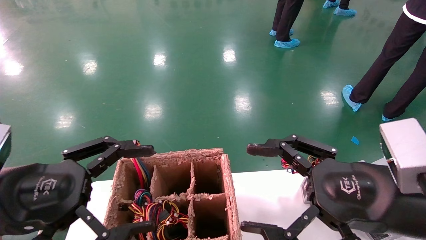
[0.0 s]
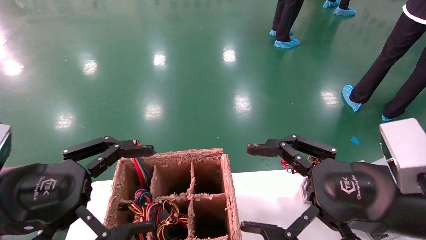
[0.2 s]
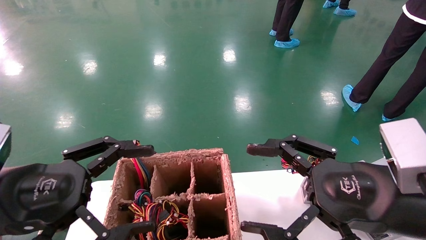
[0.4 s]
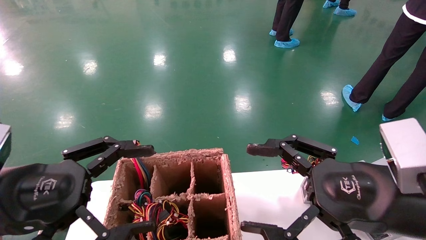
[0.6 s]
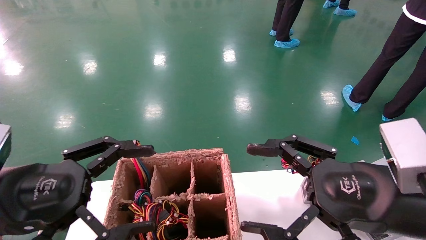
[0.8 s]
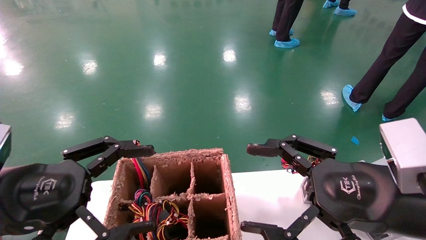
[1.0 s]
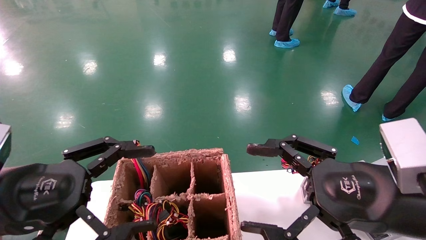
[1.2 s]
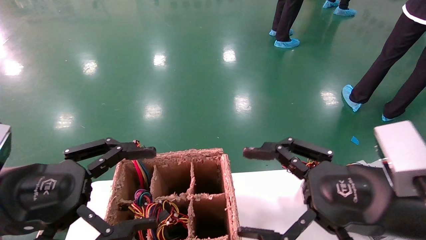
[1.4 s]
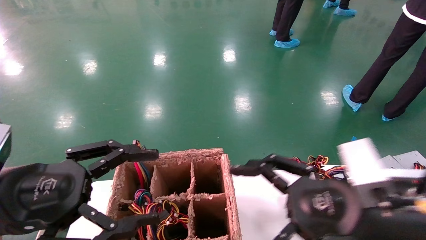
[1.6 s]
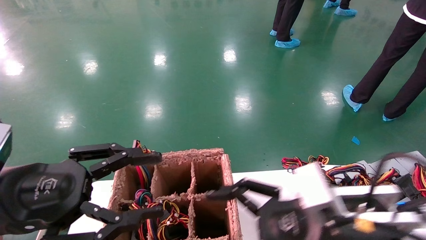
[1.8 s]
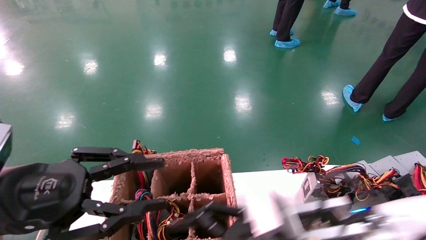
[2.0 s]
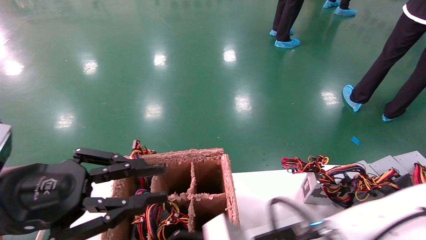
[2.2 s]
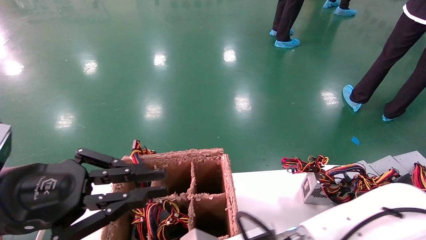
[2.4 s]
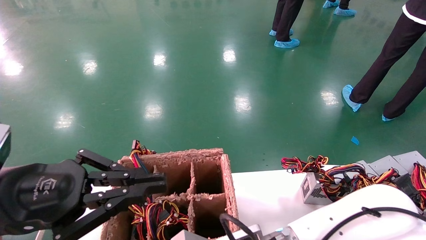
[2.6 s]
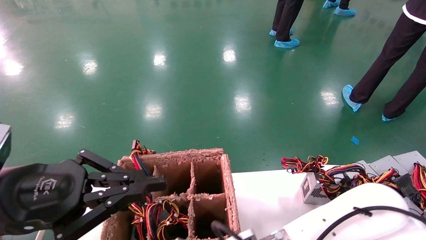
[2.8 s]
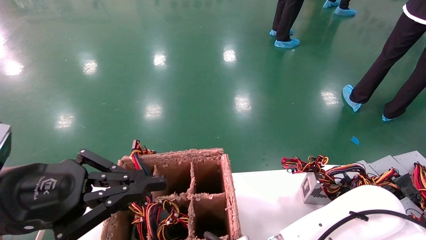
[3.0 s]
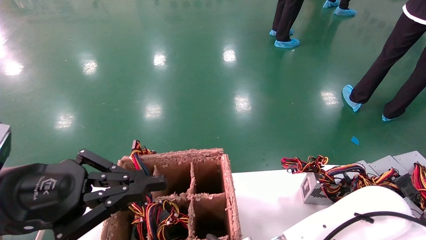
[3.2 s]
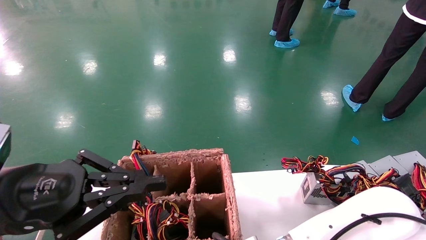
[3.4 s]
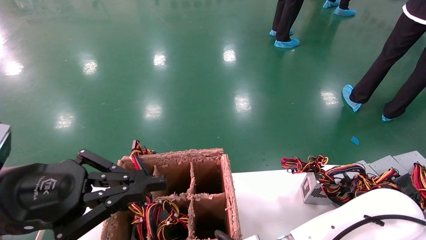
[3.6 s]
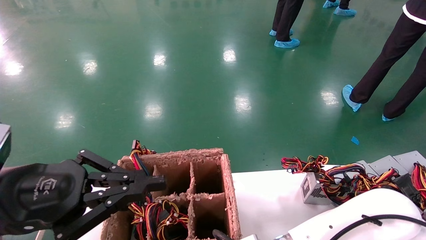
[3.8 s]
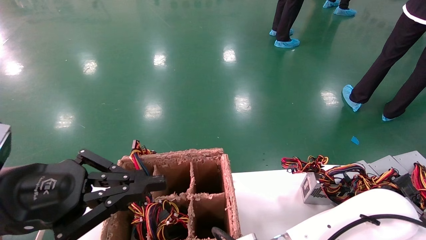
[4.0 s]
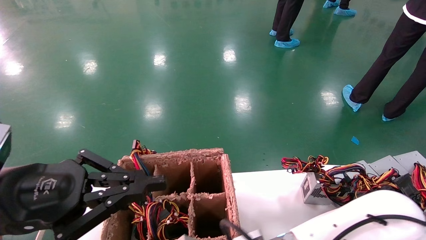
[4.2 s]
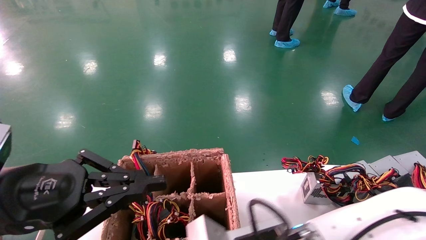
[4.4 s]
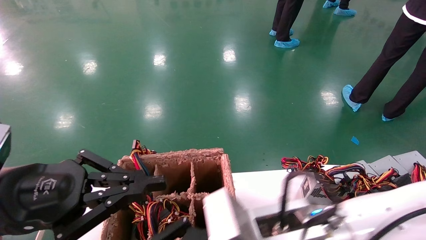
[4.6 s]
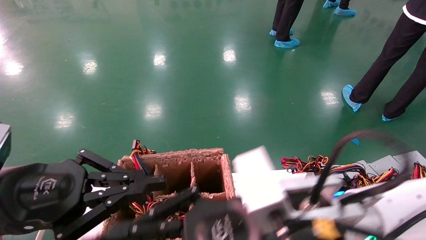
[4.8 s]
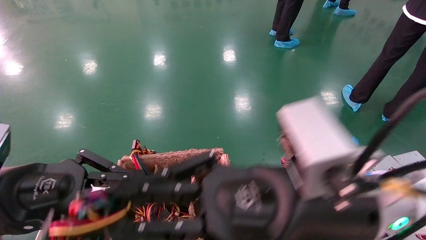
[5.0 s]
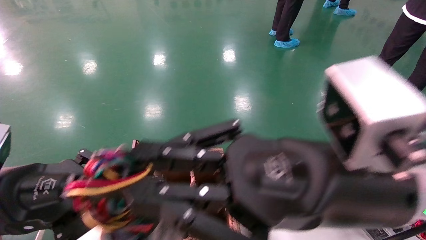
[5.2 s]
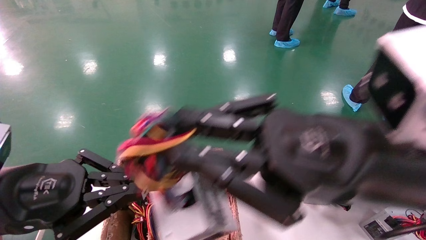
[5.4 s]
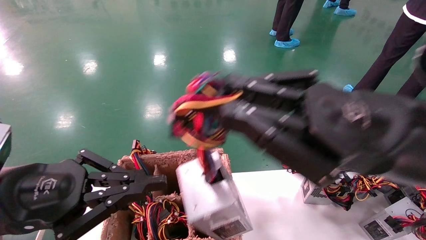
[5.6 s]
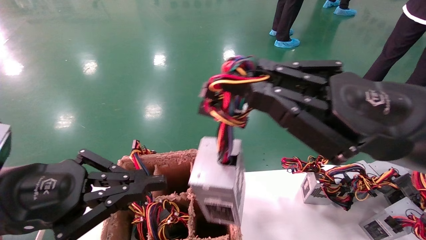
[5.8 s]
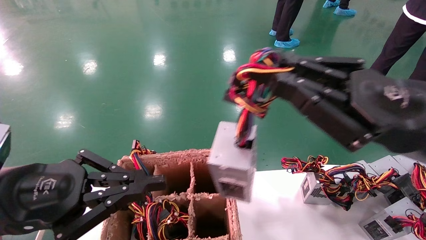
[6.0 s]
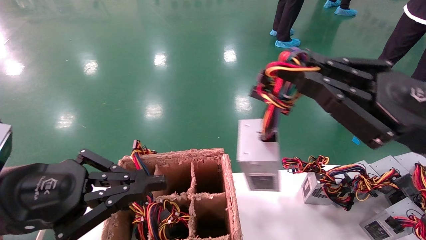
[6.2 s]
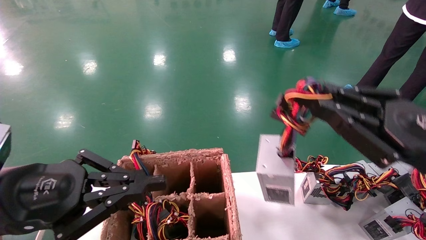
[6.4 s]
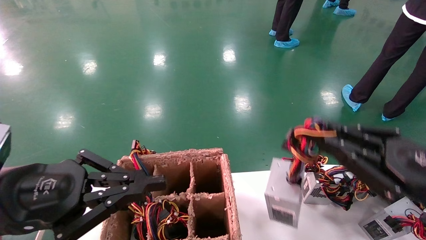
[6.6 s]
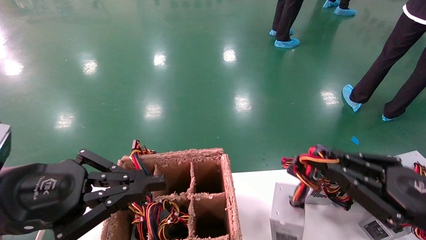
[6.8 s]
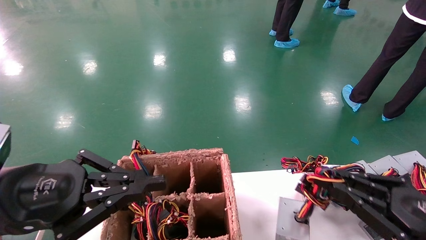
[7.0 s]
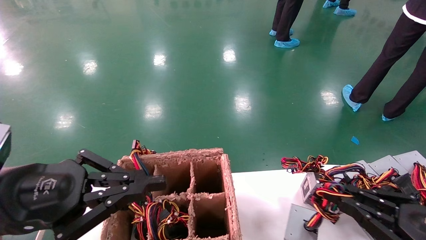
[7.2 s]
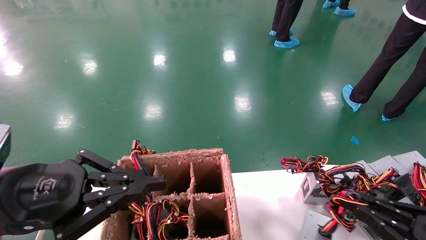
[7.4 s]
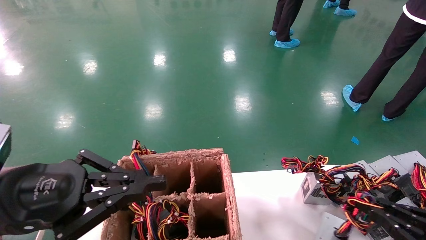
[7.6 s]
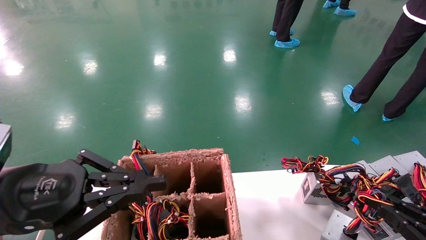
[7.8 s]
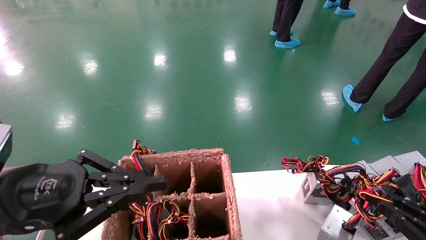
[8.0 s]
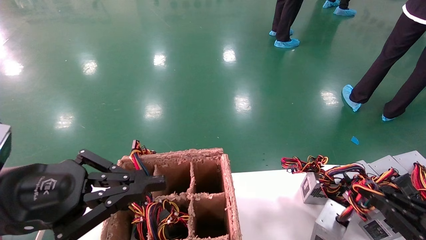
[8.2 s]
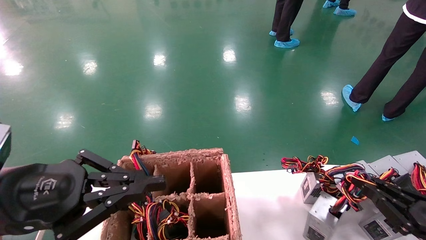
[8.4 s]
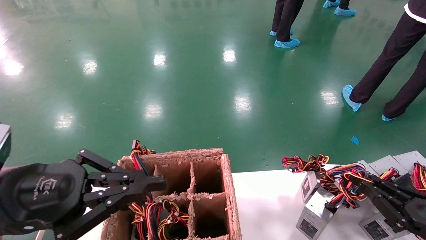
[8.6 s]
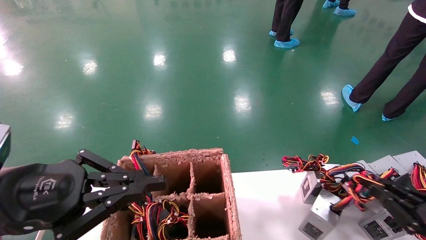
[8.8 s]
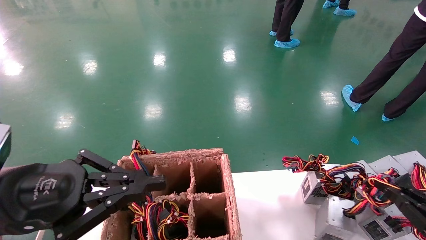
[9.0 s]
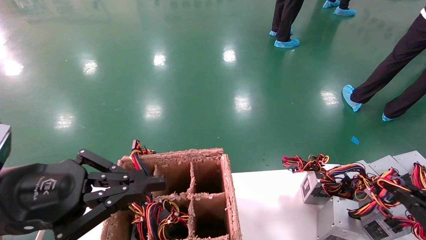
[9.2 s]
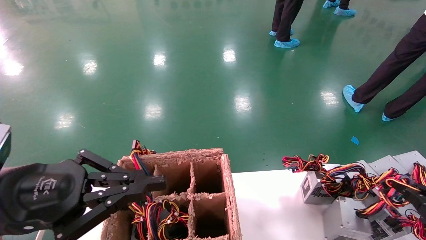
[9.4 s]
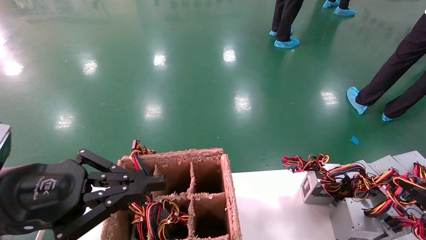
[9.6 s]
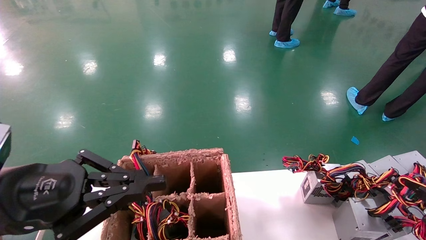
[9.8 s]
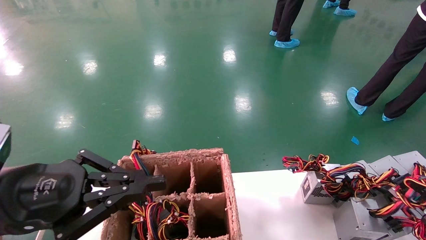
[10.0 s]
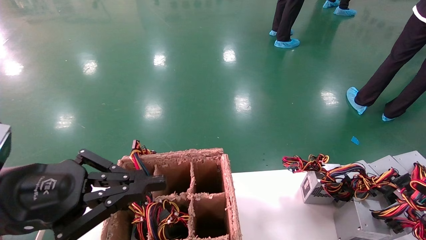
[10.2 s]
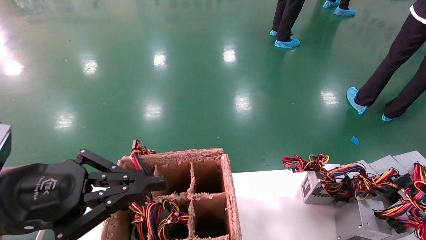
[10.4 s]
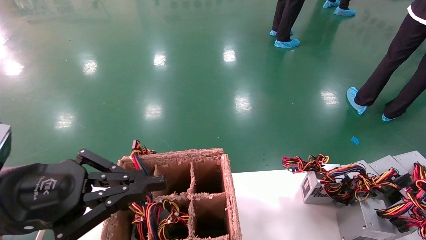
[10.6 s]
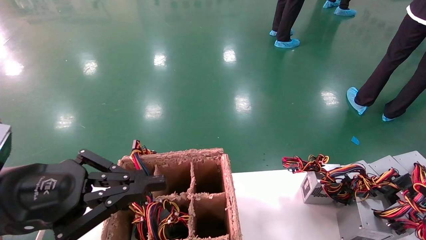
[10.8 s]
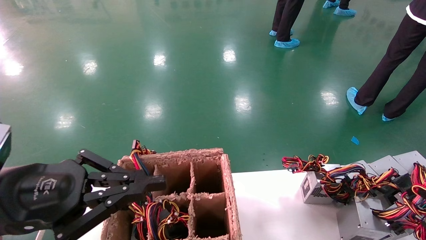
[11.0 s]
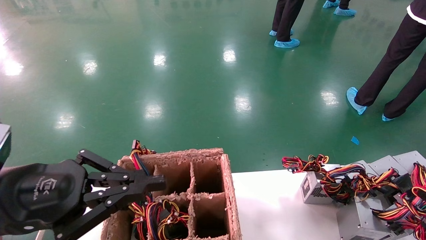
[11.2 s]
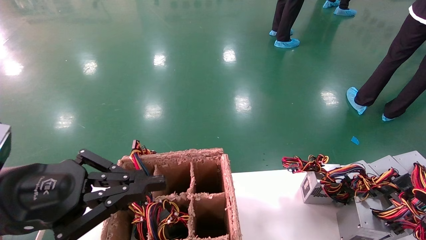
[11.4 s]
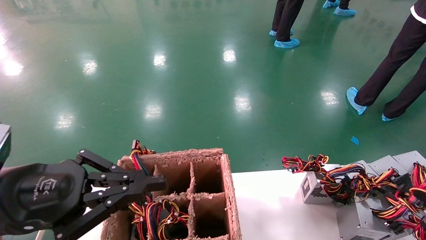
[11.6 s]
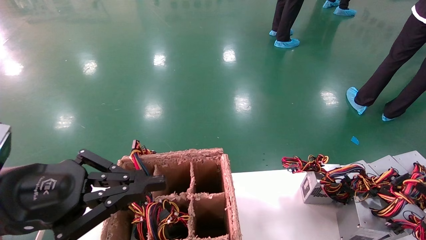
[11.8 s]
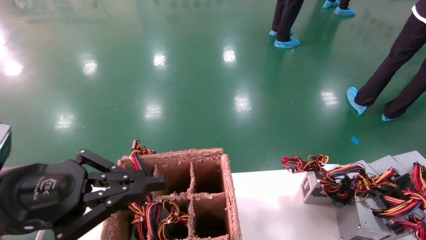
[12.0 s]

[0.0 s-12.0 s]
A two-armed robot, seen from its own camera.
Step, 1.6 to 4.0 s: Grab the main unit power supply from the containment box.
Step, 4.2 to 12.0 s: Place the main unit power supply in the designated area.
0.0 to 1.6 s: The grippers move only a little.
1.6 to 3.0 s: The right gripper shifts approximately 20 cm to the left and downward; the left gripper closes up.
3.0 to 4.4 s: The right gripper shifts about 5 cm upward, and closes up.
4.4 to 6.0 s: The right gripper goes approximately 25 cm to the right and upward.
6.0 to 7.6 s: The right gripper heads downward and to the right, covering some 25 cm.
7.6 to 9.0 s: The grippers stay close to where they were, moving slightly.
9.0 to 10.4 s: The right gripper shifts some 5 cm to the right.
10.4 to 12.0 s: The right gripper opens.

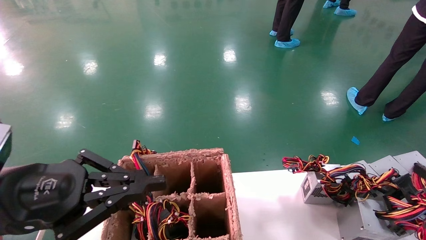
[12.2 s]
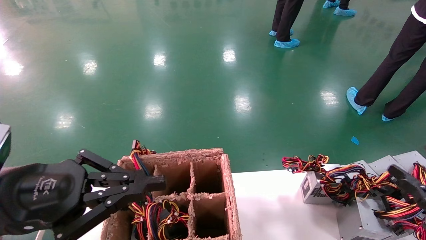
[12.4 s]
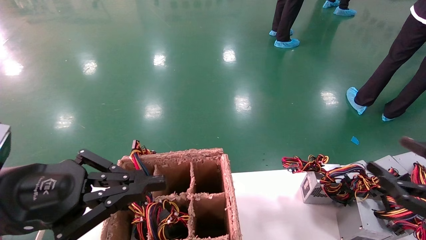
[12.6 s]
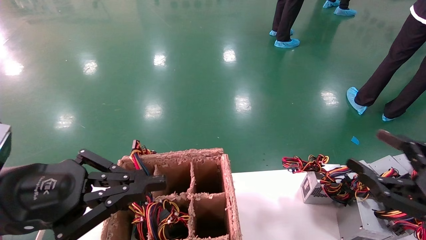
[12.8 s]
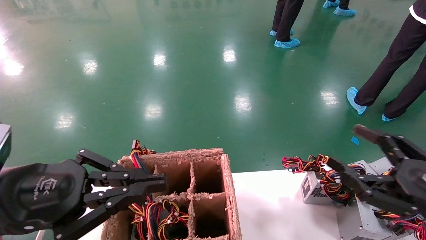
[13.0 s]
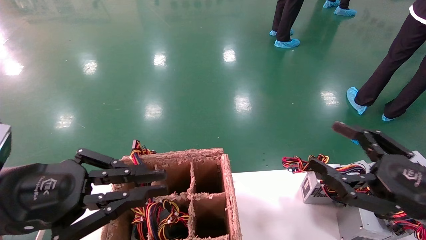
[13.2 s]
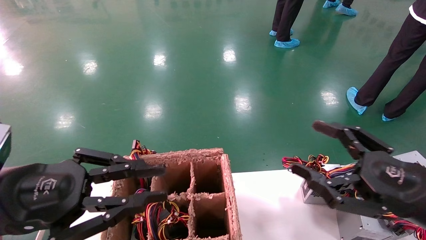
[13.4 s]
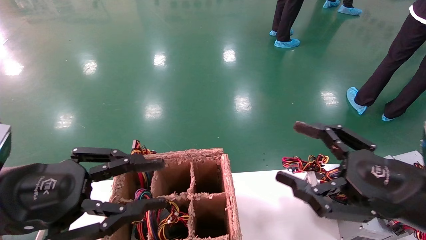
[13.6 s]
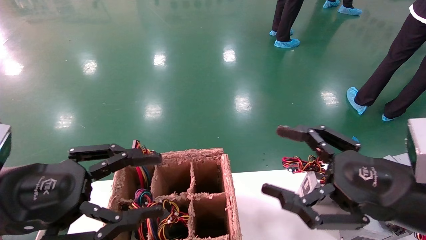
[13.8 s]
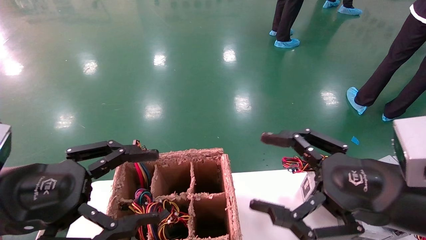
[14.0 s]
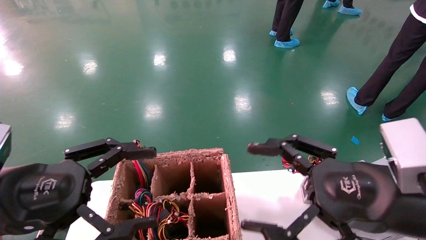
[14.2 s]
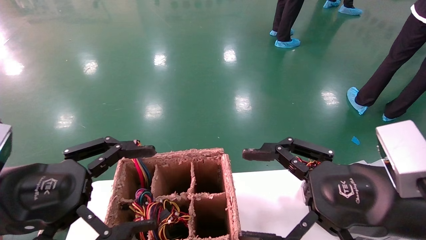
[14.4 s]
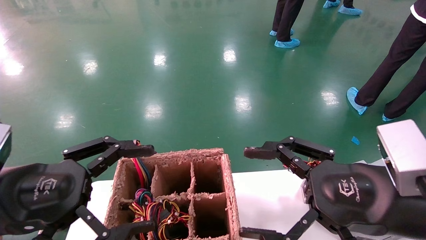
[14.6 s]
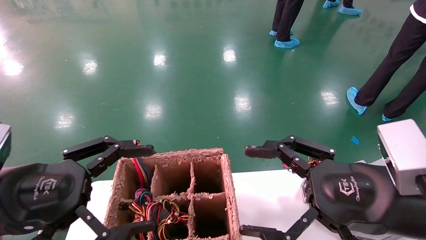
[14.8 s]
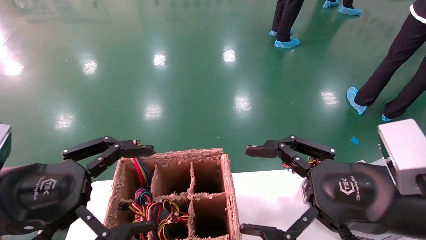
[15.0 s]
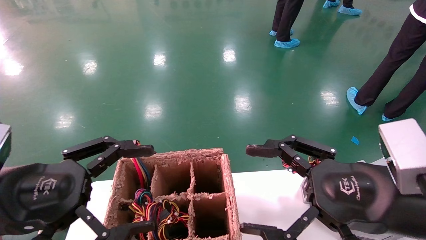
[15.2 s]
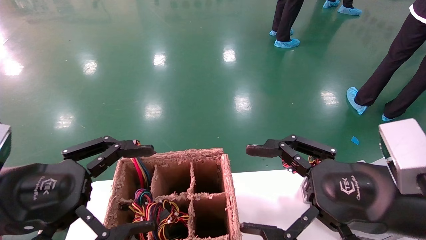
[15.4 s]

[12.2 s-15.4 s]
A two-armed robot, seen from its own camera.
12.2 to 13.8 s: The left gripper opens, while the right gripper shifts approximately 20 cm to the left and upward, and opens up.
13.8 to 15.4 s: The left gripper opens.

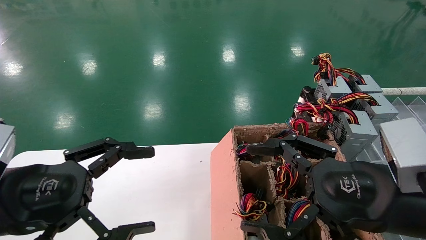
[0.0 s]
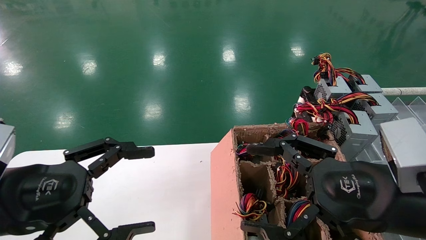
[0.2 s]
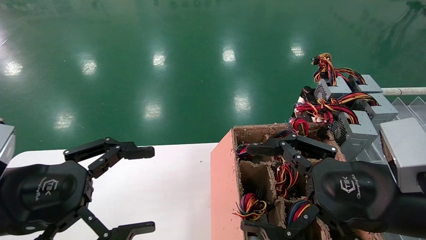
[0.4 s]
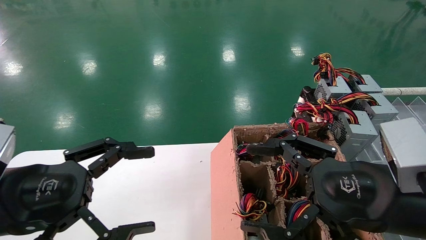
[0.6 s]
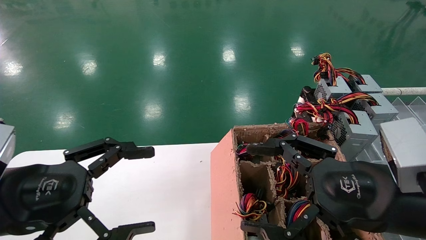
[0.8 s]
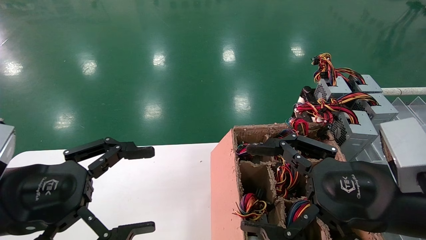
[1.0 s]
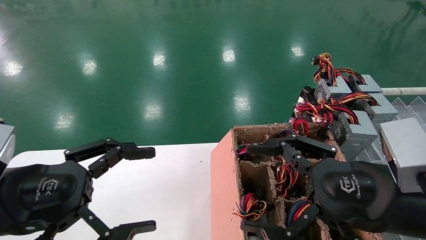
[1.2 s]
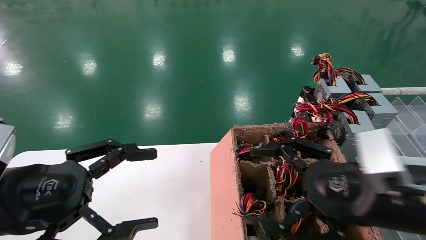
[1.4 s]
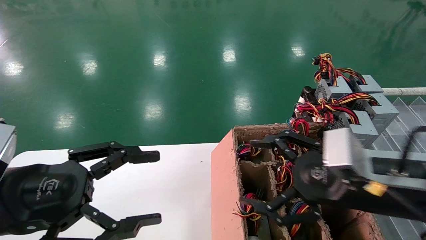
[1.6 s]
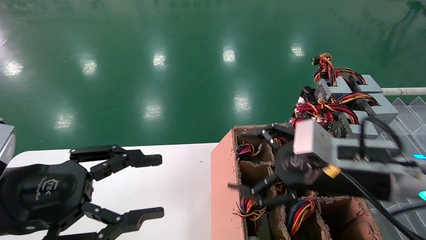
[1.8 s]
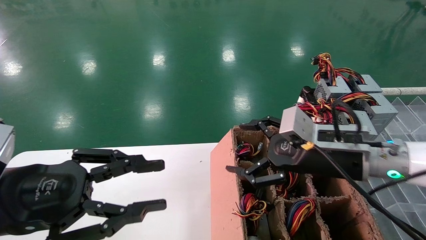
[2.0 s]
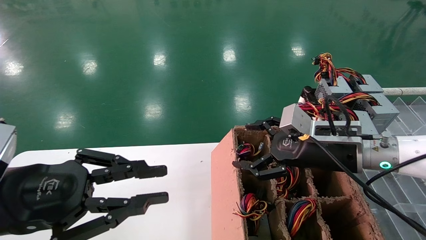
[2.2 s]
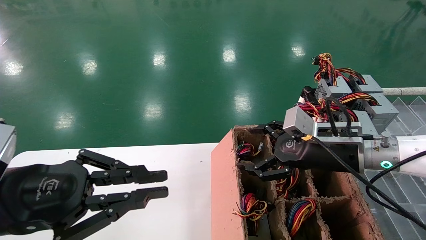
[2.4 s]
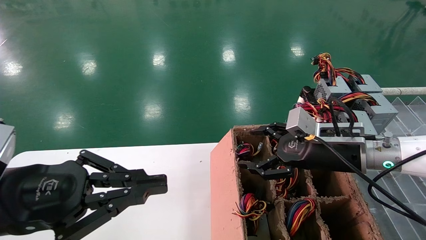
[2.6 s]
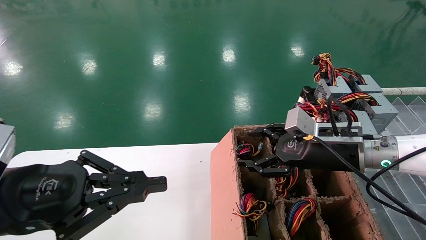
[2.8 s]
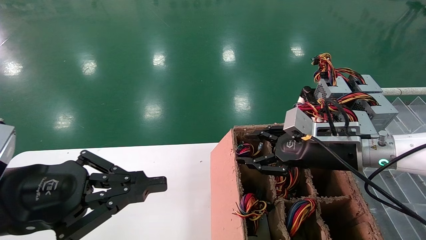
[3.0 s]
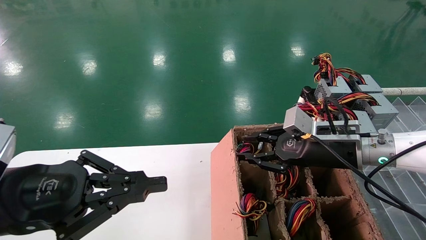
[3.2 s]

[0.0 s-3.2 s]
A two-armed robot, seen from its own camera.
0.0 to 1.6 s: The right gripper shifts by approximately 5 cm.
1.6 to 3.2 s: The right gripper travels forward by about 10 cm, and closes; the left gripper closes its fingers.
